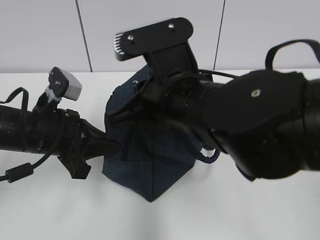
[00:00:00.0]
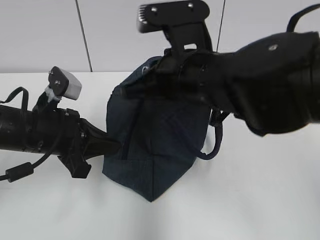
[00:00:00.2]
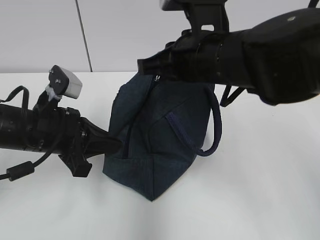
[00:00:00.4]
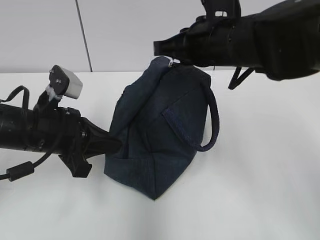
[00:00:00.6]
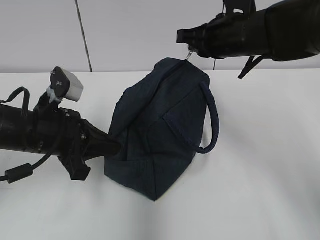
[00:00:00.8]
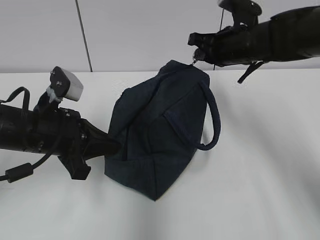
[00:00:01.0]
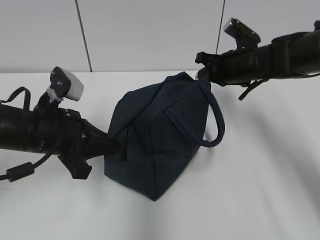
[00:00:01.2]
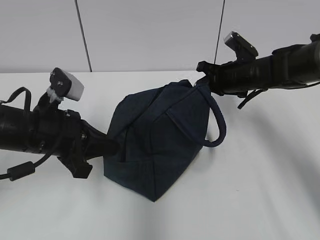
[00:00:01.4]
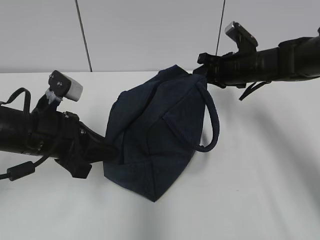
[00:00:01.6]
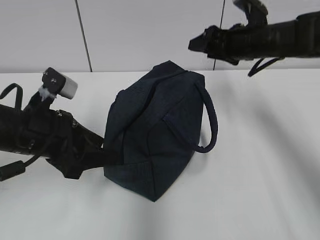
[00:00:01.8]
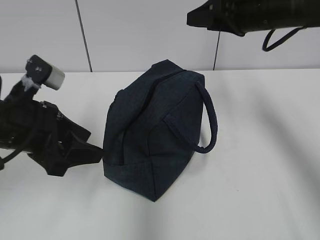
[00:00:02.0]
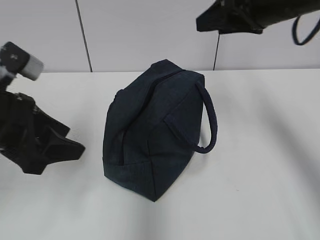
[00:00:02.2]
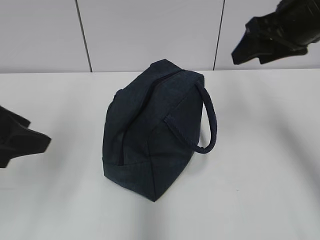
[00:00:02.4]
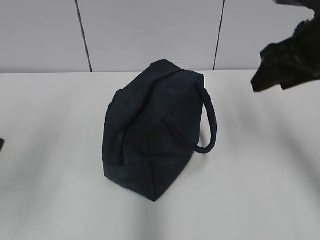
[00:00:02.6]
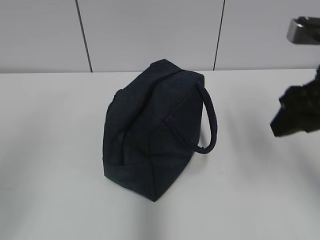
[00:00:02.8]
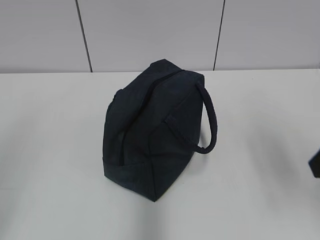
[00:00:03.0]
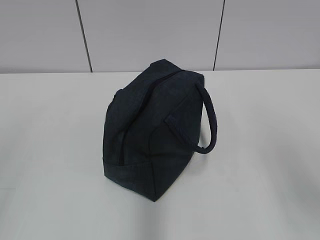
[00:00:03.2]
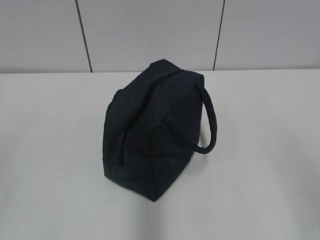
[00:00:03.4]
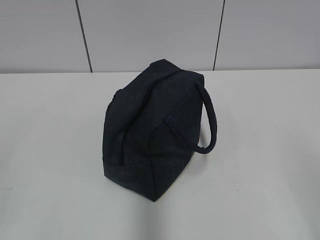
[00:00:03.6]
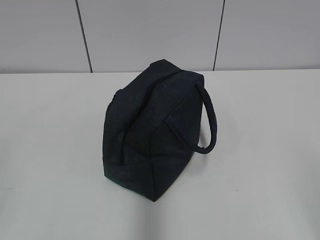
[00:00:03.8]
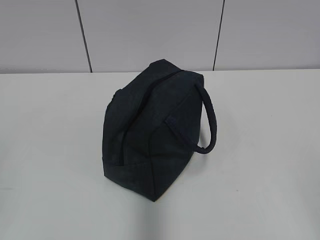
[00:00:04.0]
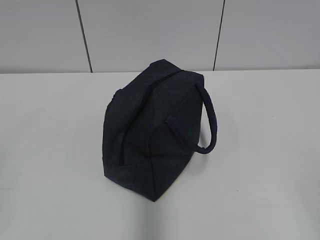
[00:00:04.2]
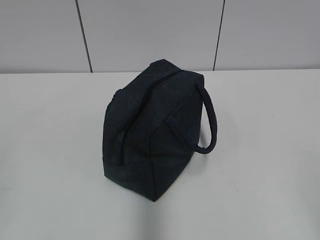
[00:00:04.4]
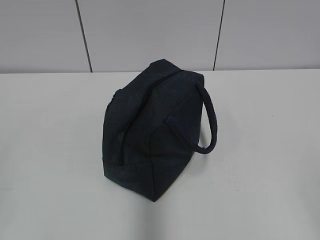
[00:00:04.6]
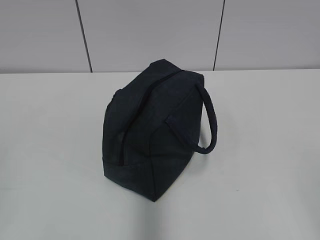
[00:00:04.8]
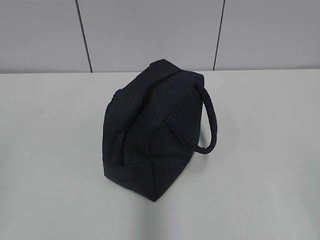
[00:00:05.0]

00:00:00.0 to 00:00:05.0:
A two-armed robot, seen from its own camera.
00:00:00.0 to 00:00:01.6: The right gripper is displaced forward and to the right by some 25 cm.
00:00:01.6 to 00:00:03.4: The left gripper is displaced backward, to the left and upward by some 30 cm, and opens. The right gripper shifts roughly 40 cm backward, and opens its fingers.
